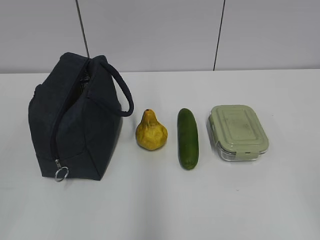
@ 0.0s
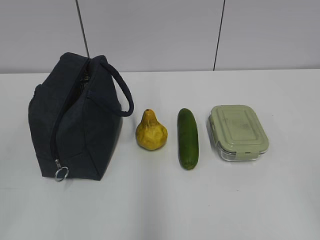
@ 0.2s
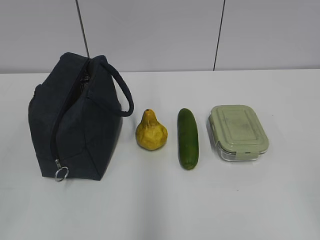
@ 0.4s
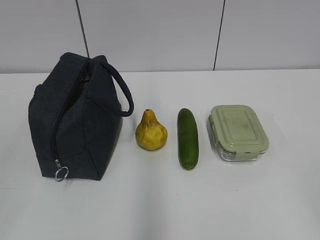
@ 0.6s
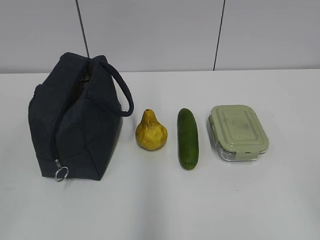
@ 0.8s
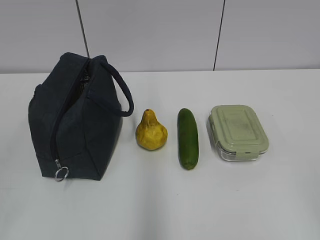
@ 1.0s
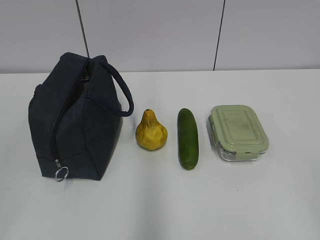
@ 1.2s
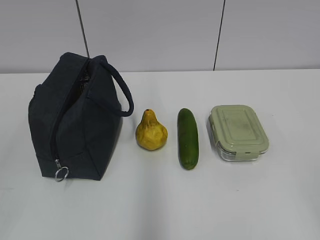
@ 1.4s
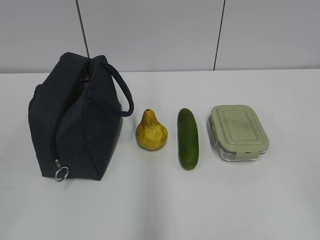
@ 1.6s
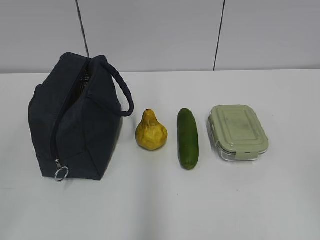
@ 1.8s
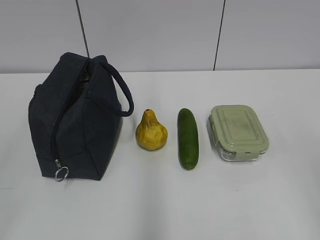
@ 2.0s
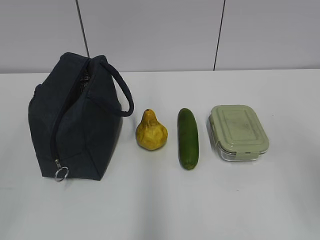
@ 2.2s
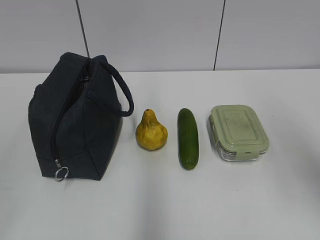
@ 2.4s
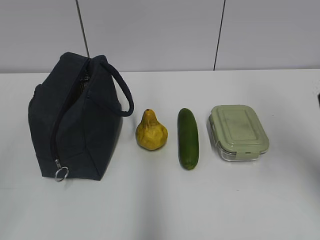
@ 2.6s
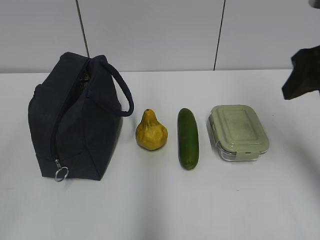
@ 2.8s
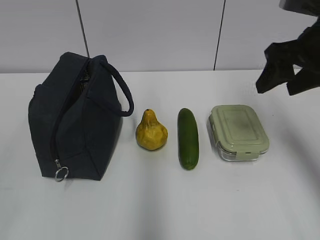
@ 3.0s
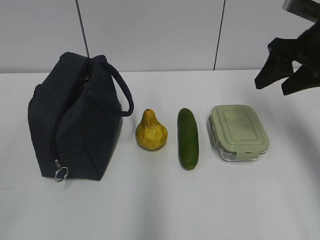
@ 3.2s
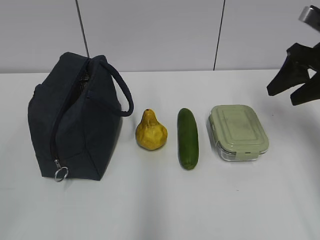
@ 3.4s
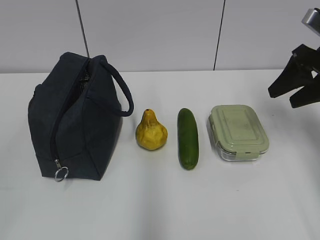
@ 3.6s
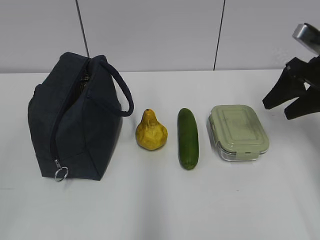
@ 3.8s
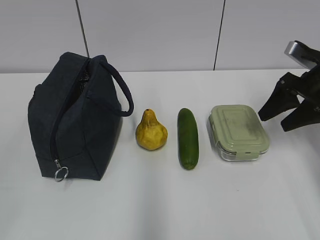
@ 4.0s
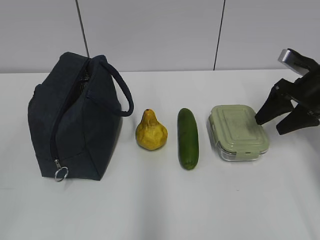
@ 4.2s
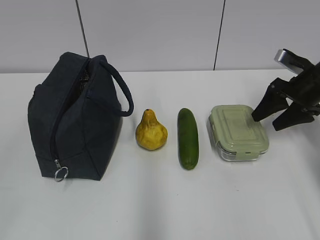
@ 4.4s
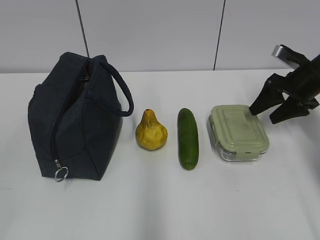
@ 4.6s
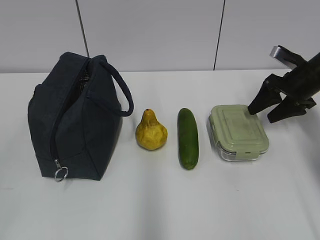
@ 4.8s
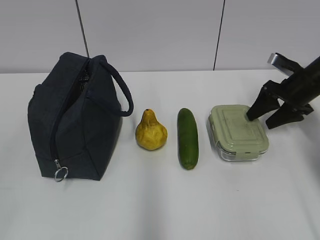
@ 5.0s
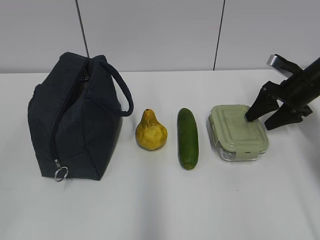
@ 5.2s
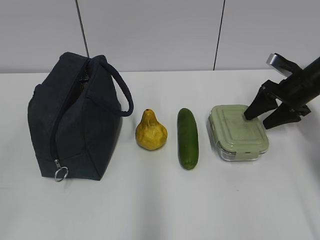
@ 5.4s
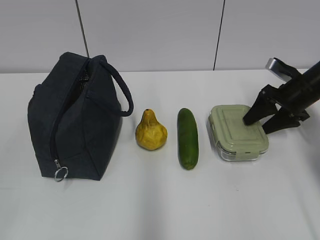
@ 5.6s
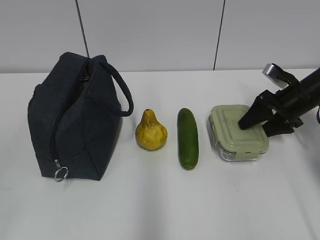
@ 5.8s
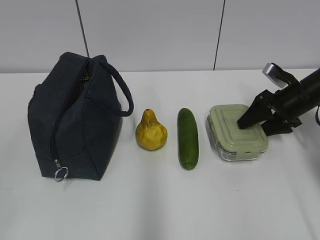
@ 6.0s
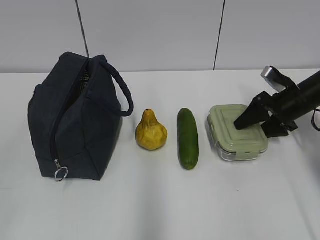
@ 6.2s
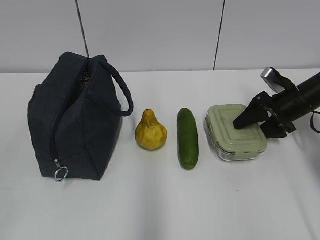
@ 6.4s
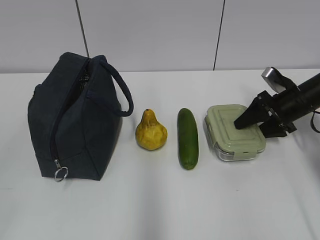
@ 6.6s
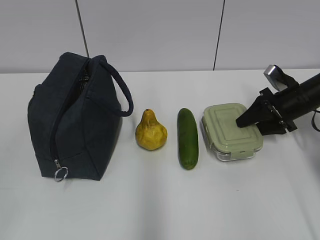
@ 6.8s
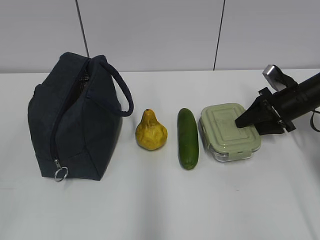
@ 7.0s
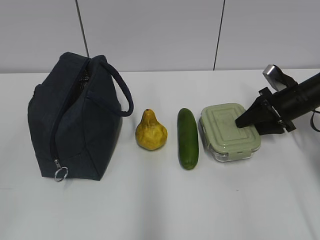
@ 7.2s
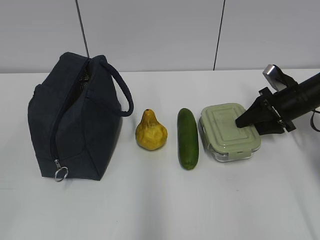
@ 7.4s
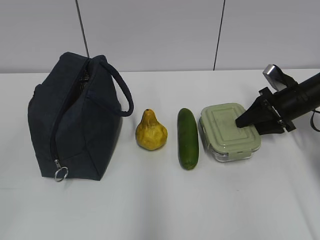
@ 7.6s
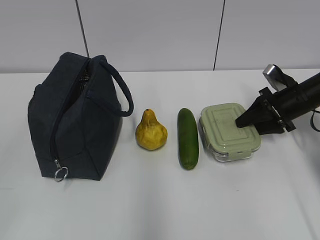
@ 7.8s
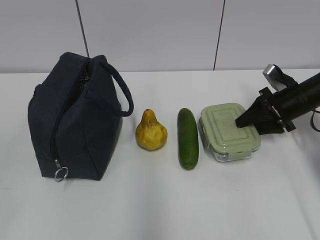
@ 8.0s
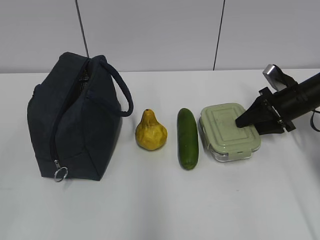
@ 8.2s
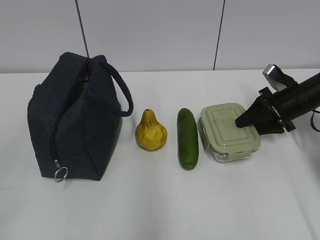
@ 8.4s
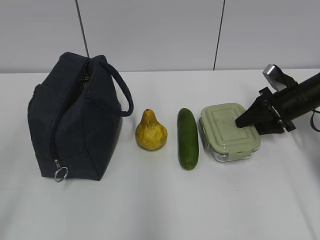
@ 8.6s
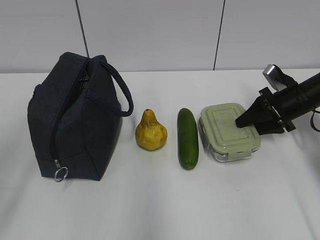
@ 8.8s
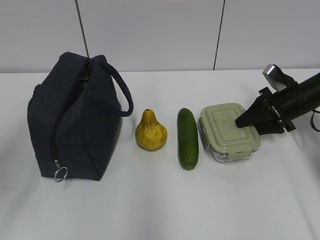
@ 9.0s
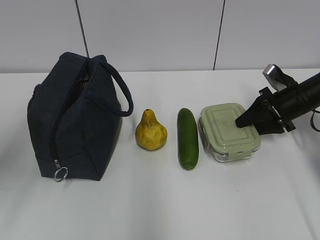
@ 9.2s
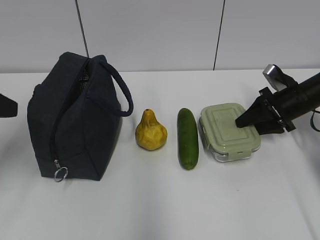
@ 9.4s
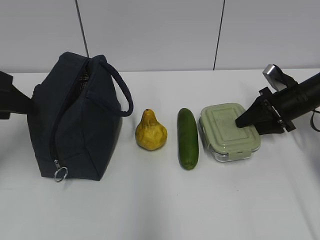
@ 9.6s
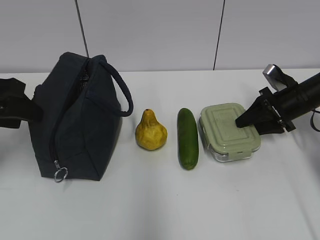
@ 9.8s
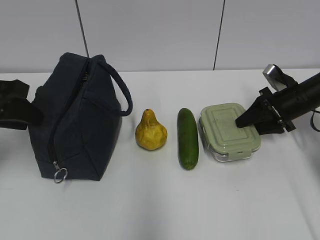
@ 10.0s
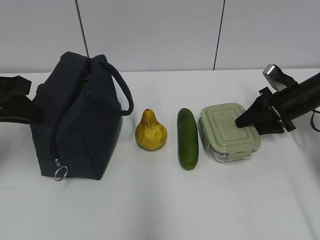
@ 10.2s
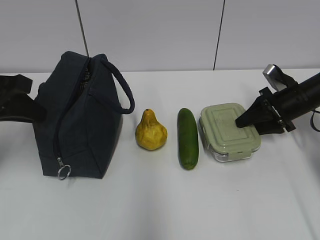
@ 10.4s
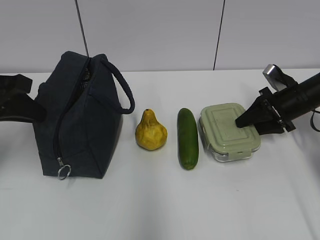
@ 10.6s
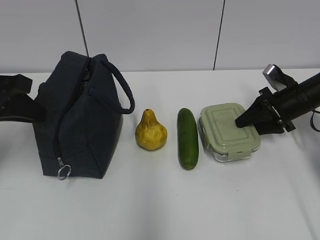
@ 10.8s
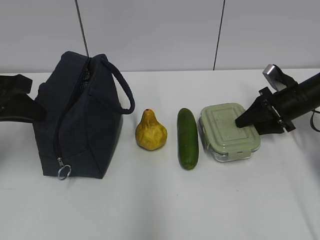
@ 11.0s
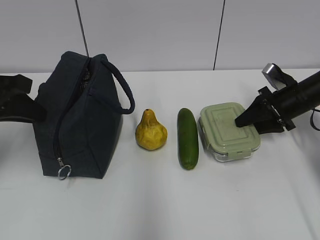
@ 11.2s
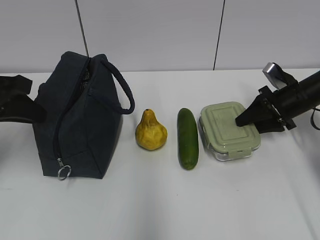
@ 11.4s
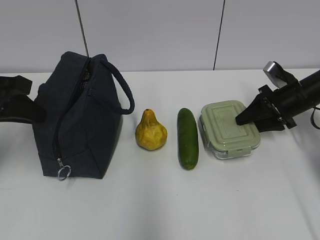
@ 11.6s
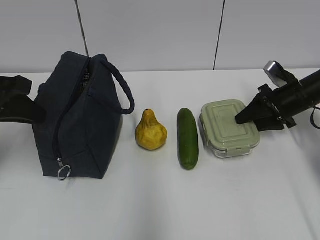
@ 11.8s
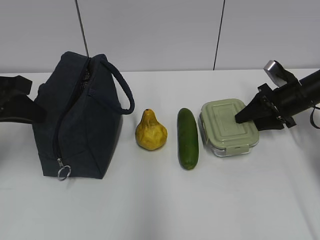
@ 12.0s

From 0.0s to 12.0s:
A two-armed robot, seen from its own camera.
From 1.6s to 3.0s: The right gripper shifts about 35 cm forward.
From 3.0s to 4.4s: The right gripper goes some 15 cm downward, forward and to the right.
From 4.4s to 6.0s: The right gripper changes place by some 5 cm.
From 6.0s to 7.6s: The right gripper closes up.
From 7.6s to 9.0s: The left gripper heads forward, covering approximately 15 cm.
From 9.0s to 10.4s: The left gripper heads forward, covering roughly 15 cm, and closes up.
From 10.4s to 12.0s: Both grippers stay put.

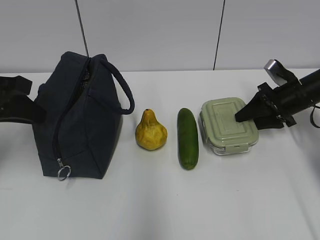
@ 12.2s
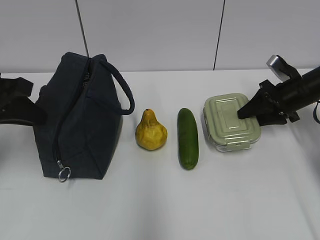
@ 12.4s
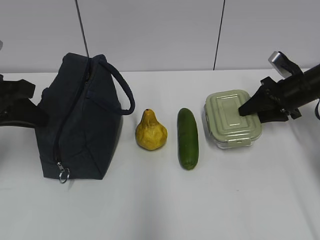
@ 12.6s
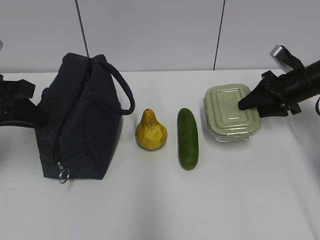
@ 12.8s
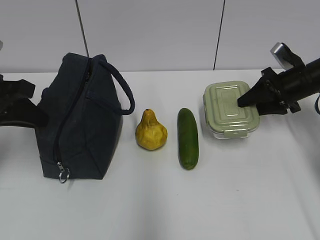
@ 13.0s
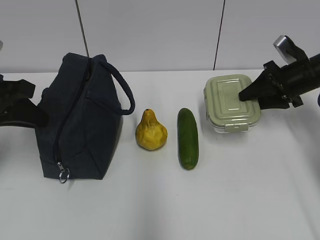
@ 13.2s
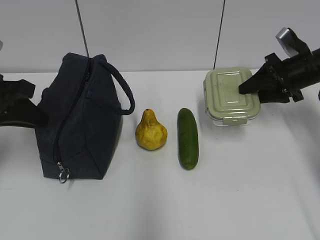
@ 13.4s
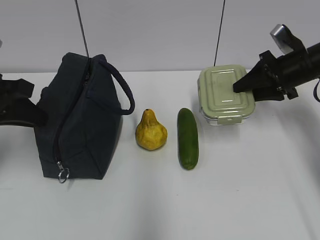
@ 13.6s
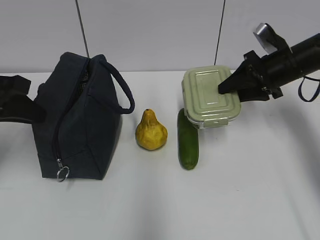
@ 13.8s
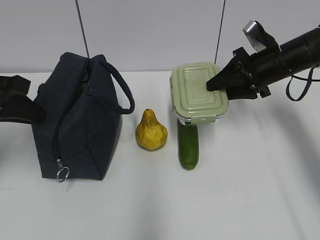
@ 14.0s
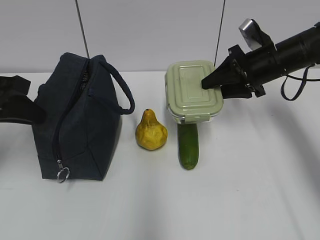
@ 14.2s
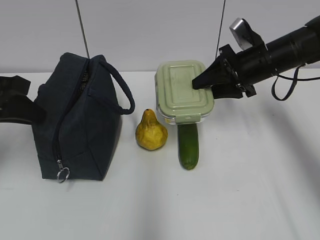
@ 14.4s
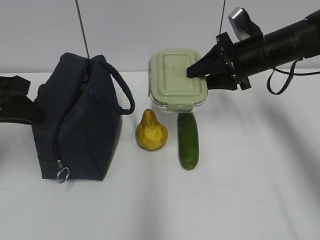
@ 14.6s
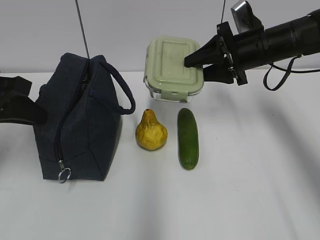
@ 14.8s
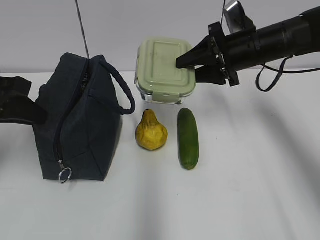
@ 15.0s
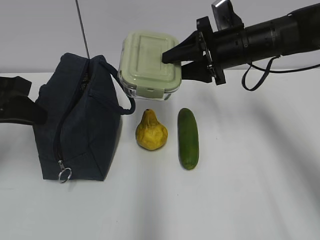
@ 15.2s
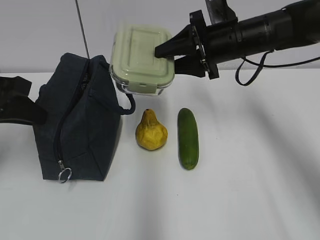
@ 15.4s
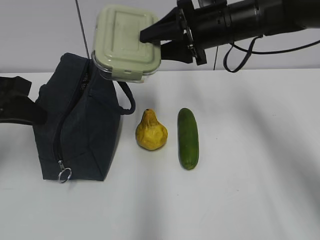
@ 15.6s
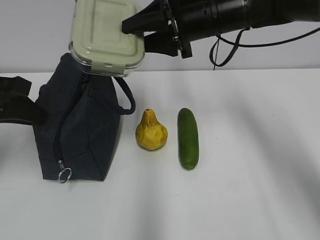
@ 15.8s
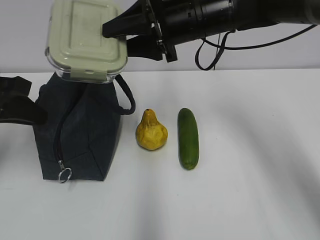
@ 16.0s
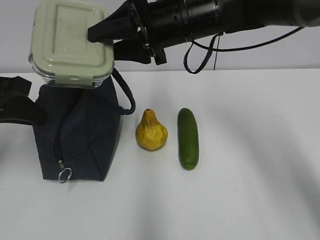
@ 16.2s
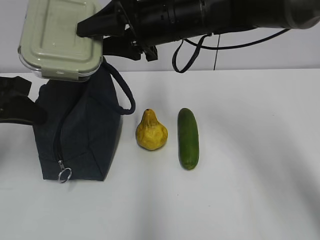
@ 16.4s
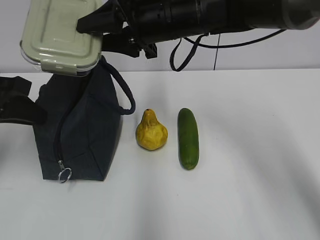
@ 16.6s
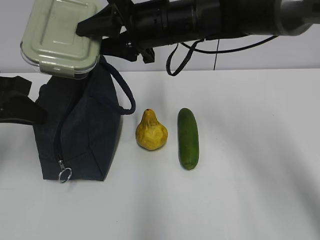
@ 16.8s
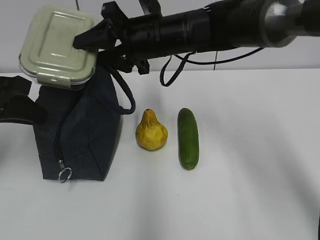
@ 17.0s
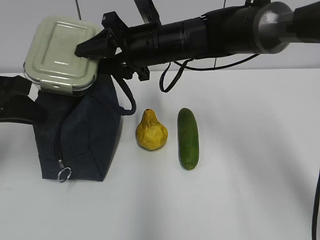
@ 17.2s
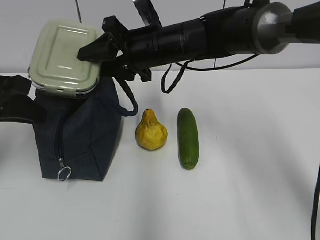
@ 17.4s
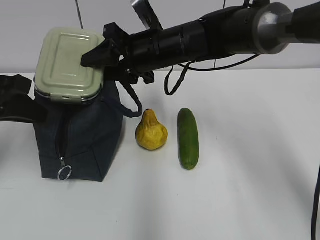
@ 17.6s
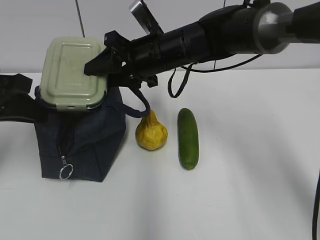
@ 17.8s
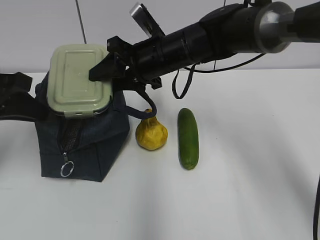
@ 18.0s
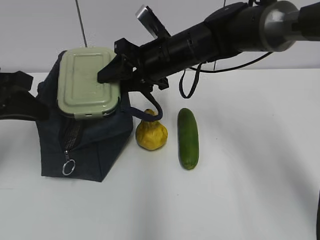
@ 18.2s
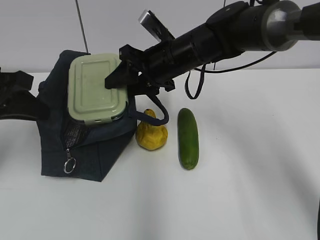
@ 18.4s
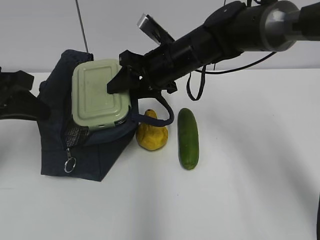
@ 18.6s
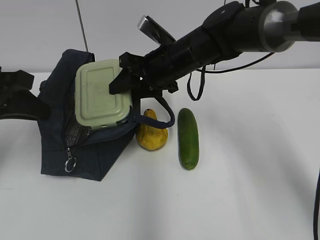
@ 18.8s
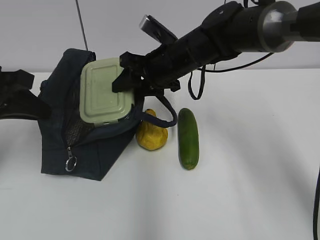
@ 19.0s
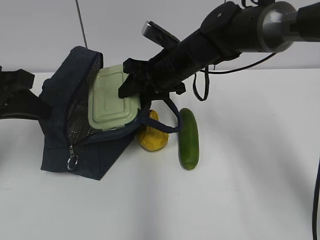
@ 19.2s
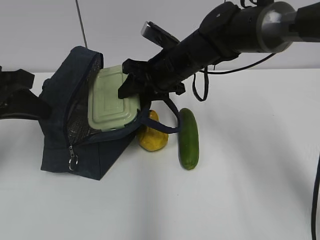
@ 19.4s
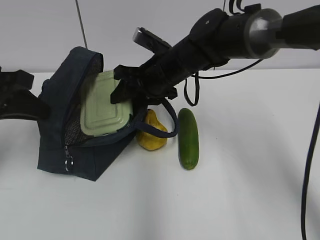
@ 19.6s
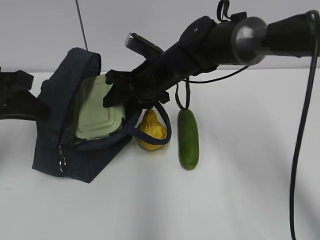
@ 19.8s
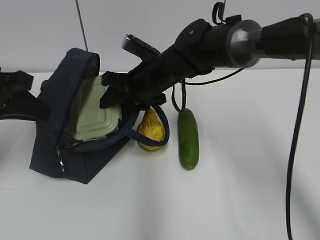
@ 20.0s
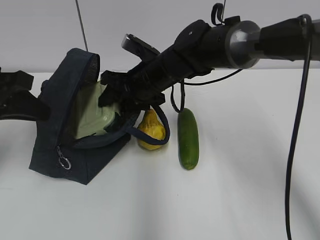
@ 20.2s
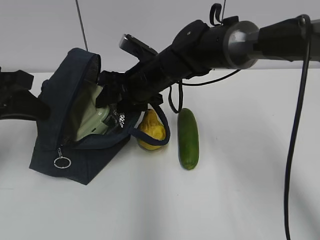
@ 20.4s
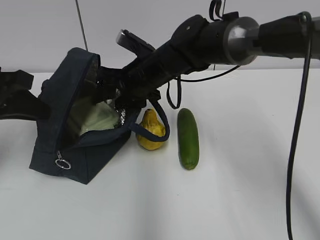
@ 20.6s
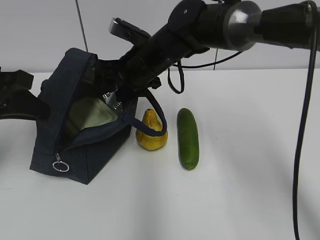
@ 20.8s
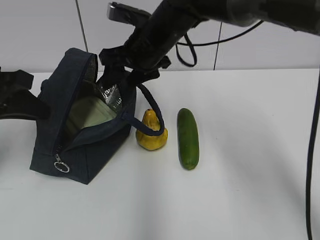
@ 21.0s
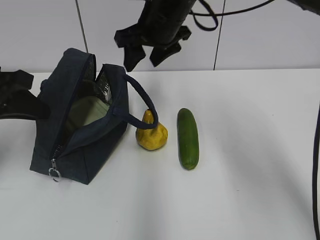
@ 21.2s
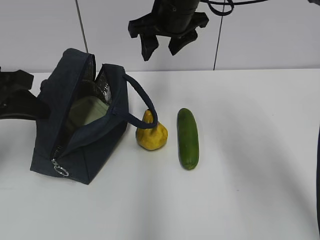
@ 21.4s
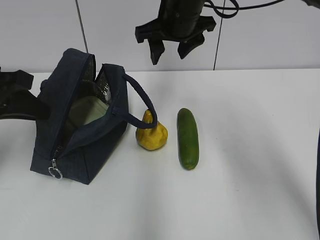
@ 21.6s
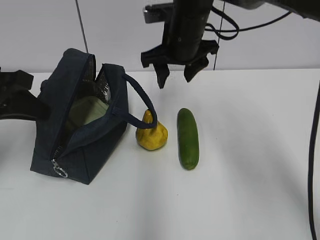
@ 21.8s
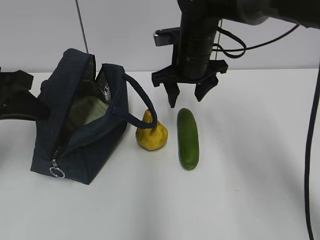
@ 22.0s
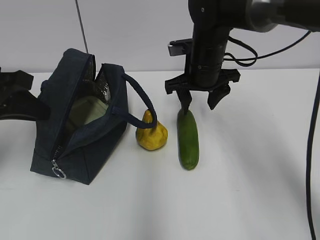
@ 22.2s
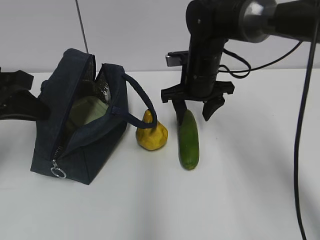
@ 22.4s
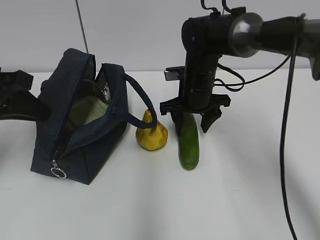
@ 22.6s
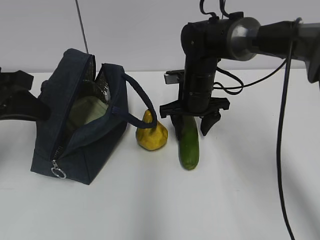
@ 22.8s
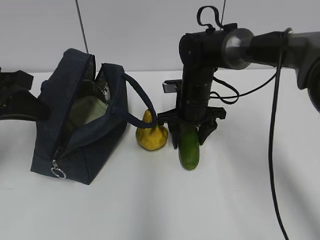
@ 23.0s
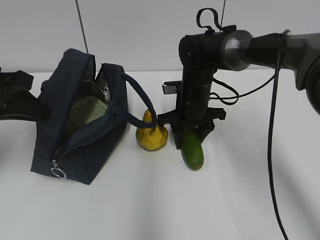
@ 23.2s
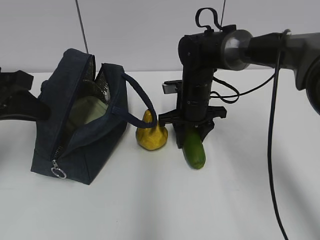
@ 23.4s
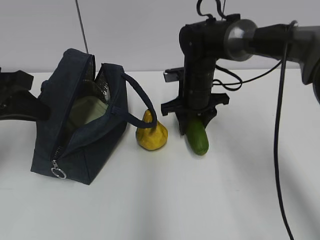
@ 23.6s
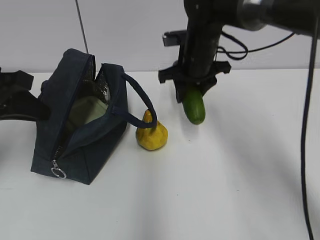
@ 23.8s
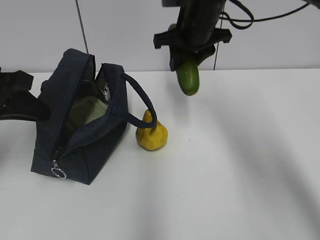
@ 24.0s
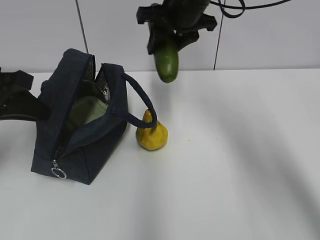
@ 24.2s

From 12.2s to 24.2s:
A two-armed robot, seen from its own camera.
From 12.2s to 13.8s: The right gripper shifts approximately 10 cm upward and to the left.
From 13.8s to 15.2s: The right gripper travels to the left by about 10 cm.
From 15.2s to 16.6s: The right gripper is displaced to the left and upward by about 15 cm.
From 16.6s to 18.2s: The right gripper is displaced downward by approximately 5 cm.
From 19.8s to 21.2s: The right gripper heads upward, covering roughly 10 cm.
From 21.2s to 22.6s: The right gripper shifts about 15 cm downward.
From 22.6s to 24.2s: The right gripper moves upward, approximately 15 cm.
